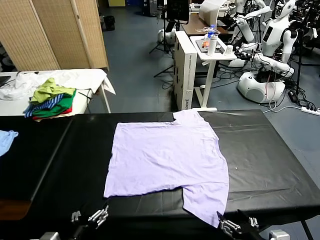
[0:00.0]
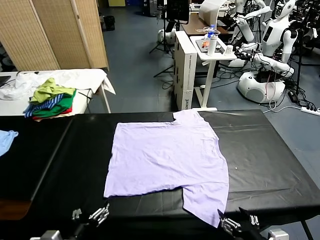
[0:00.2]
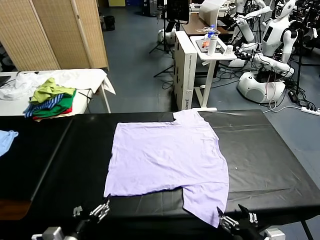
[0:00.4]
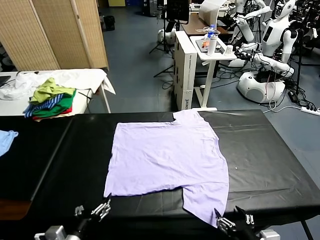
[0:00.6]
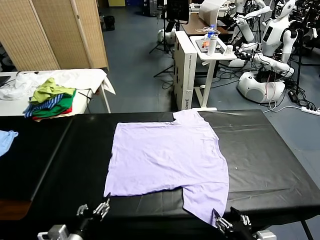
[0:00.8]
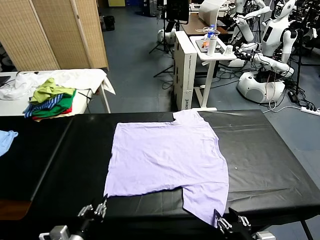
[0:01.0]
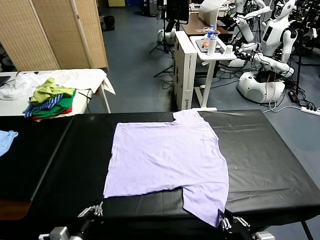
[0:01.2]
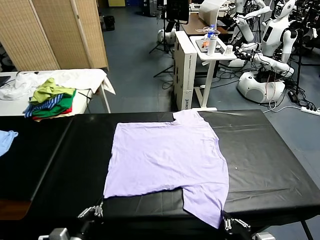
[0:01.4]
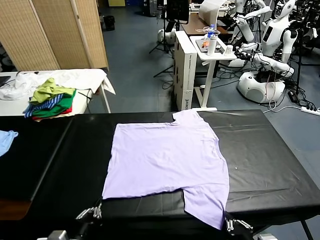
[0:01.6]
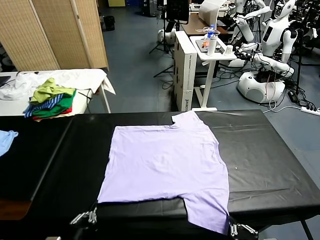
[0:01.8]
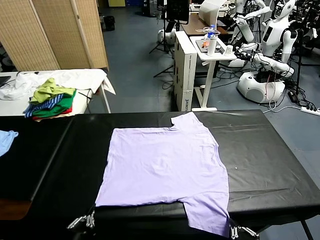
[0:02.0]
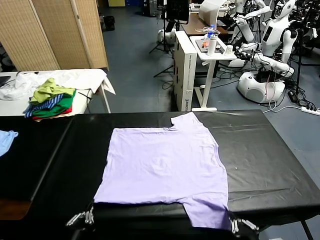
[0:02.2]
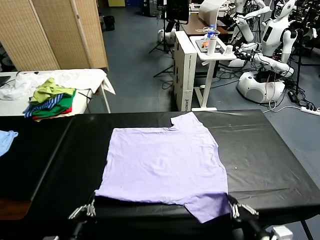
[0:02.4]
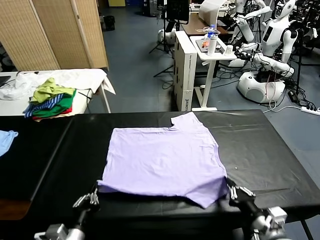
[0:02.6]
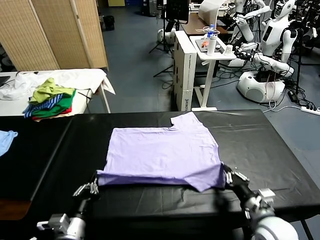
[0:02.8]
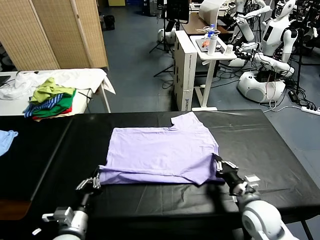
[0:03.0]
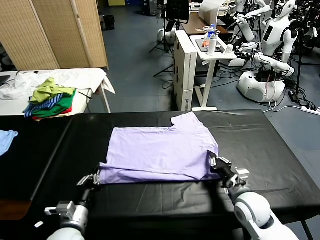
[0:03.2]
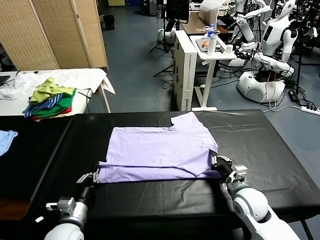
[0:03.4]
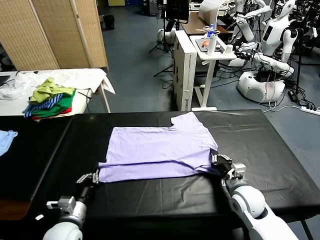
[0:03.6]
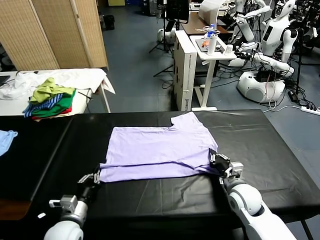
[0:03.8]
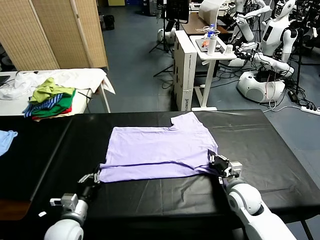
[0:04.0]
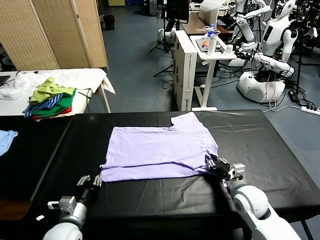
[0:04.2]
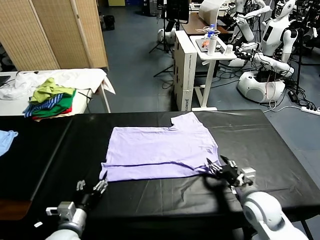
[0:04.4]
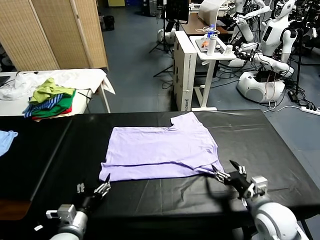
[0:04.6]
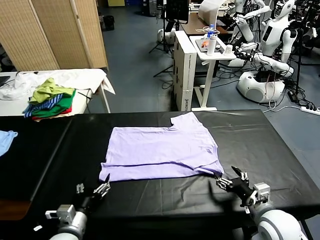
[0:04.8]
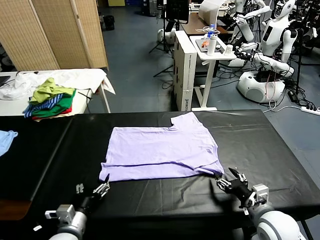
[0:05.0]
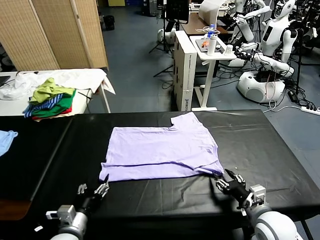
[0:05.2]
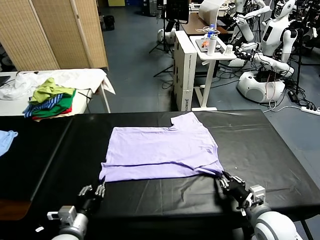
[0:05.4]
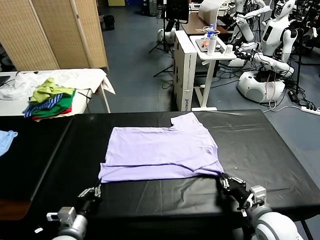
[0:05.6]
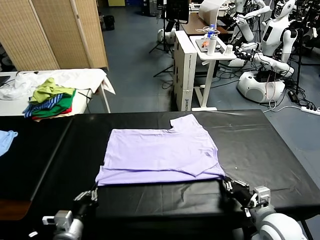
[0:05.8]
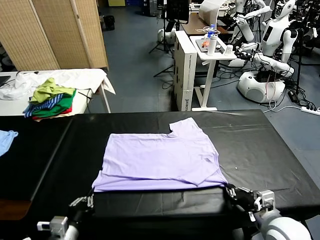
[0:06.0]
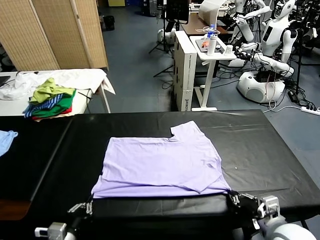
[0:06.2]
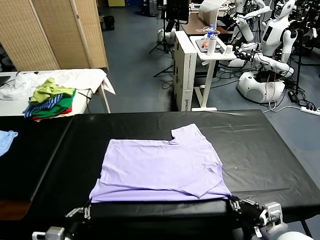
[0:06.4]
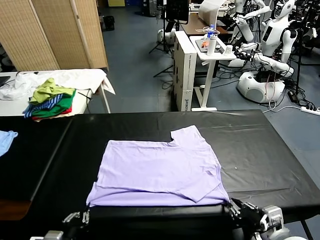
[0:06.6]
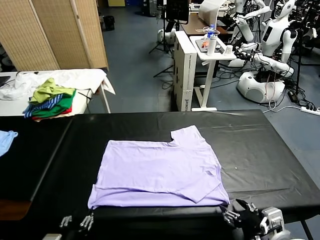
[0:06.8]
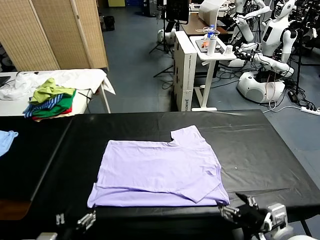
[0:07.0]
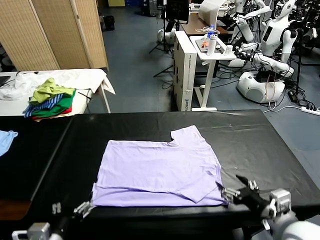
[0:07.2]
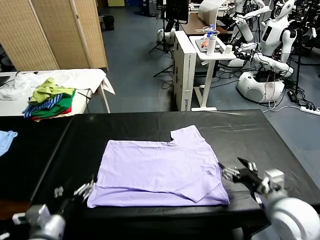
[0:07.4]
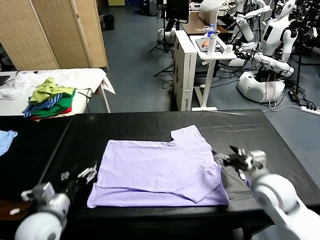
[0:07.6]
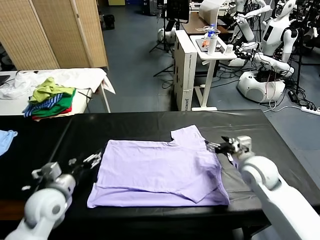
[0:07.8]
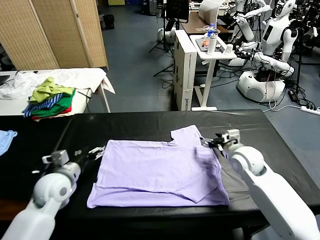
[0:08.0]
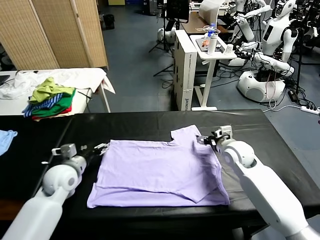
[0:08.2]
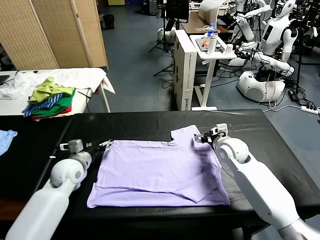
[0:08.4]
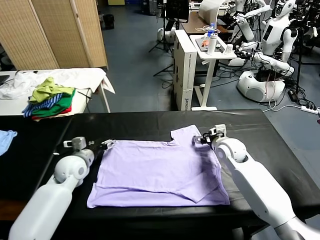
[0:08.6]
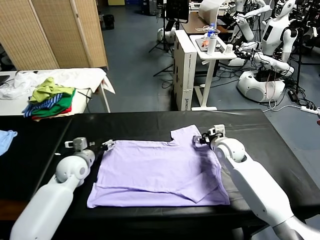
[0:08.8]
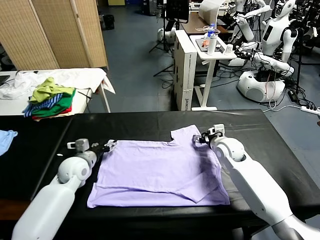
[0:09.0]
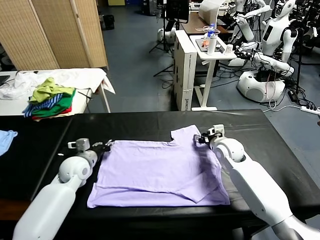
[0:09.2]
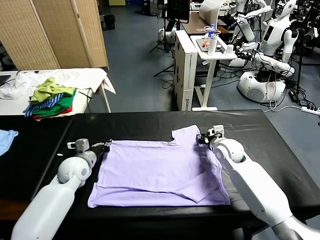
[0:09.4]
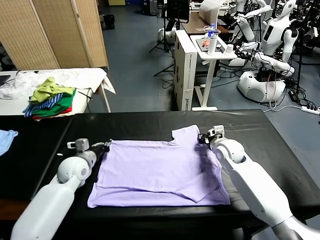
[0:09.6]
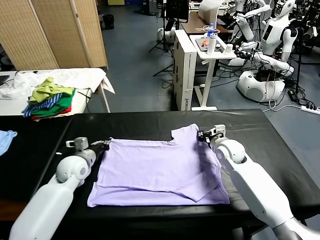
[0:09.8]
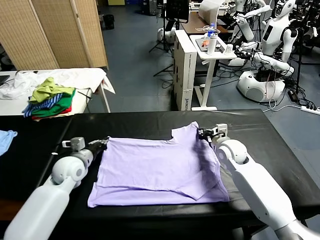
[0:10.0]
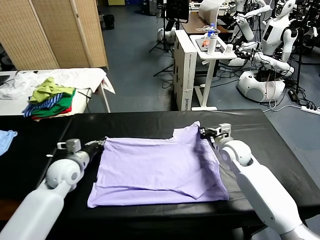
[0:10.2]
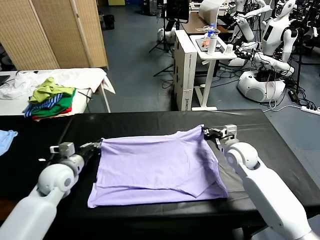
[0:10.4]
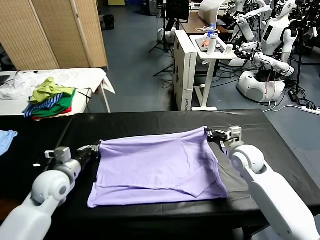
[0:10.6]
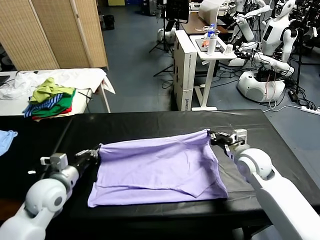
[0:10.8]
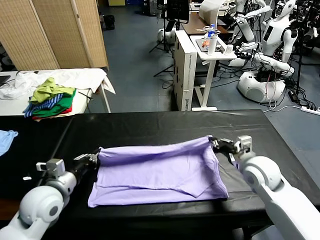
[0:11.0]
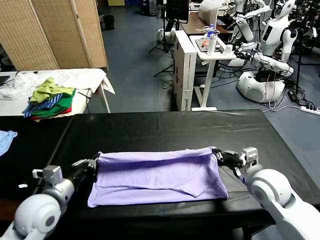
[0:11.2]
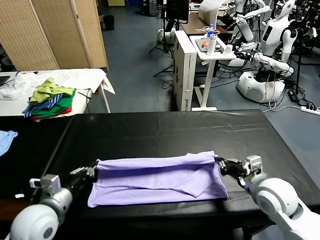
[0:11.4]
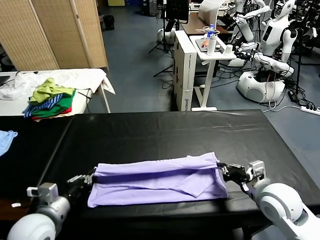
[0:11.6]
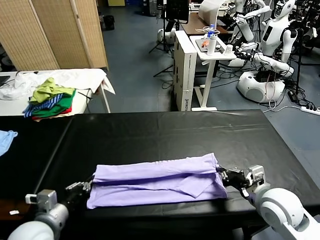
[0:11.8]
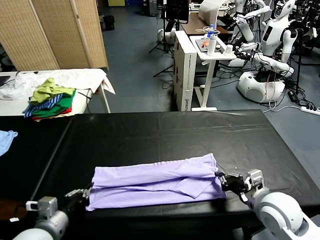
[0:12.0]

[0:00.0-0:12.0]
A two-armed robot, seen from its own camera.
Task of the whole recording: fold and organize the clothes.
Step, 0:00.0 to 0:01.6: use both grippers simultaneously to clamp the lower edge of the clothing fabric.
Step, 0:01.8 to 0:04.2: use both grippers to drag the lower edge of the fabric forward and fold it over the upper edge.
Step, 0:04.6 to 0:06.8: Drag the clothes downward with both gripper.
Step, 0:07.0 to 0:09.6: use both grippers simultaneously to clamp the upper edge of the clothing fabric.
0:01.6 to 0:03.0: The right gripper heads forward, covering roughly 25 cm. Meanwhile the left gripper heads forward, covering approximately 10 cm.
0:03.0 to 0:04.4: The right gripper shifts some 10 cm backward, and opens up. Meanwhile the left gripper opens its fingers.
0:04.4 to 0:06.0: The right gripper moves backward, some 5 cm, and closes its fingers; the left gripper shifts by roughly 5 cm, and closes up.
0:06.0 to 0:07.6: The left gripper travels forward and upward by about 10 cm, and opens. The right gripper heads forward, covering some 20 cm, and opens up.
0:07.6 to 0:09.0: The left gripper goes roughly 15 cm forward, and closes its fingers. Meanwhile the right gripper is displaced forward and downward by some 10 cm, and closes.
0:09.0 to 0:10.4: Both grippers travel together backward, some 5 cm. The left gripper closes. The right gripper closes up.
0:10.4 to 0:12.0: Both grippers travel together backward, approximately 15 cm.

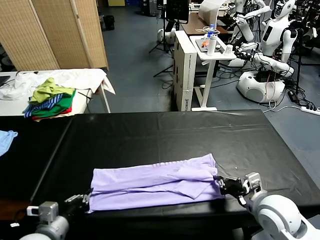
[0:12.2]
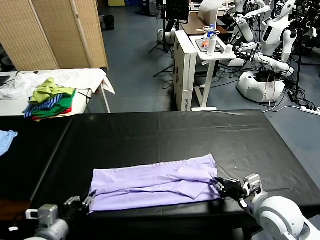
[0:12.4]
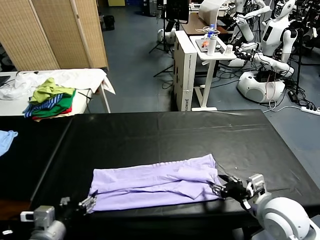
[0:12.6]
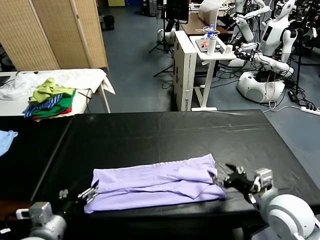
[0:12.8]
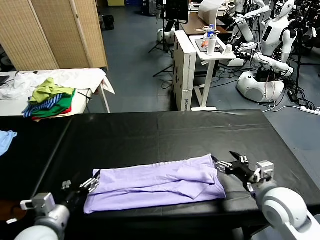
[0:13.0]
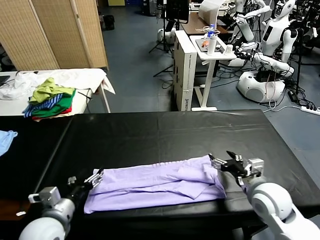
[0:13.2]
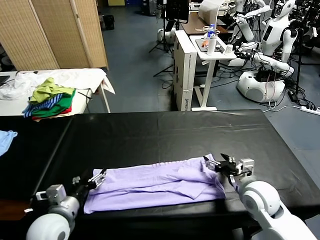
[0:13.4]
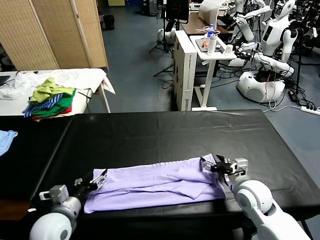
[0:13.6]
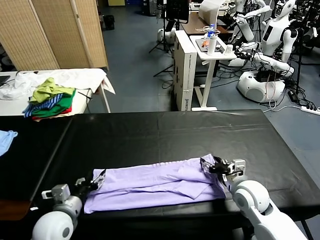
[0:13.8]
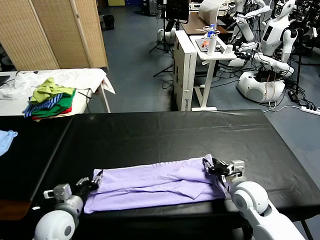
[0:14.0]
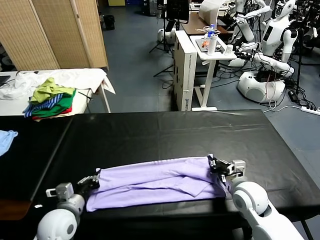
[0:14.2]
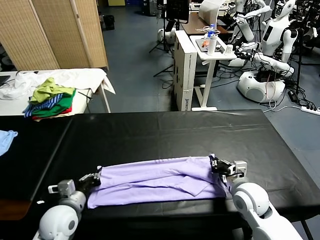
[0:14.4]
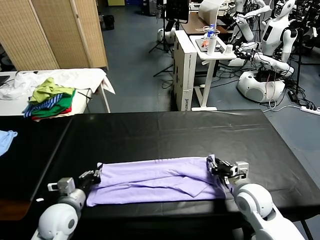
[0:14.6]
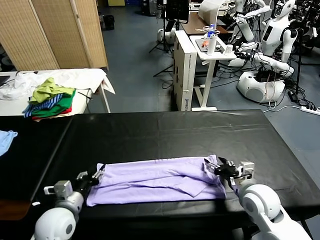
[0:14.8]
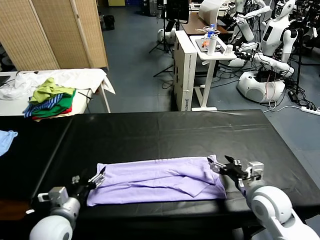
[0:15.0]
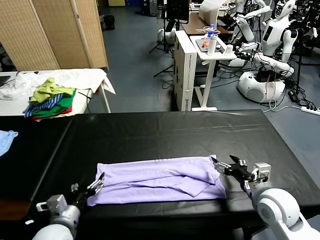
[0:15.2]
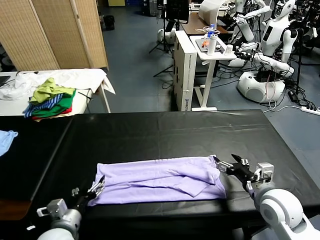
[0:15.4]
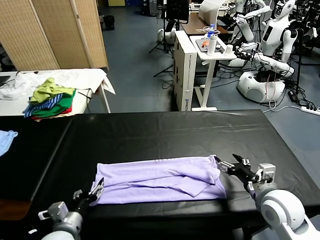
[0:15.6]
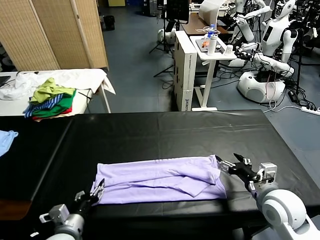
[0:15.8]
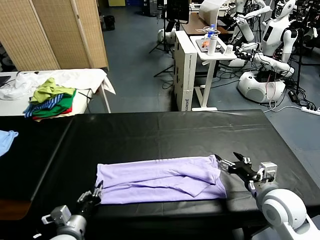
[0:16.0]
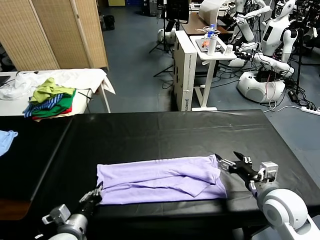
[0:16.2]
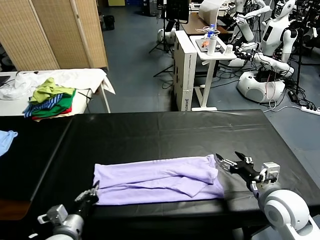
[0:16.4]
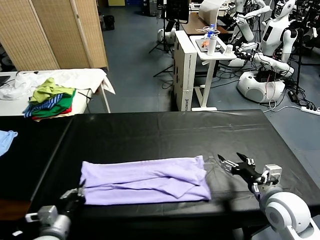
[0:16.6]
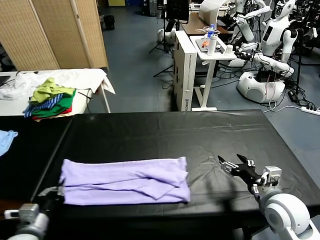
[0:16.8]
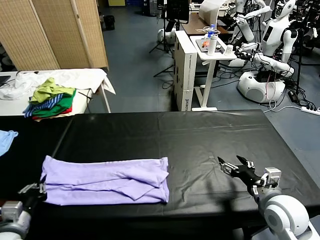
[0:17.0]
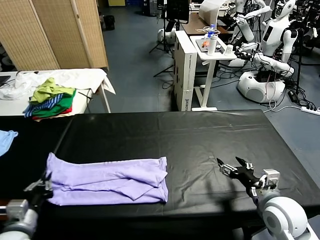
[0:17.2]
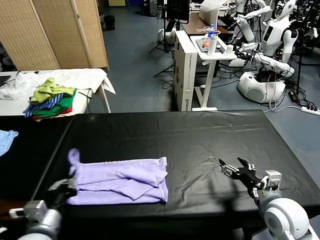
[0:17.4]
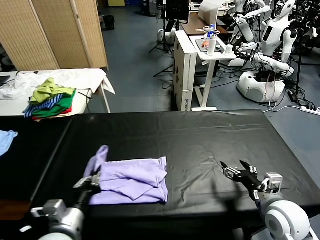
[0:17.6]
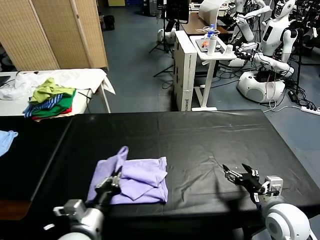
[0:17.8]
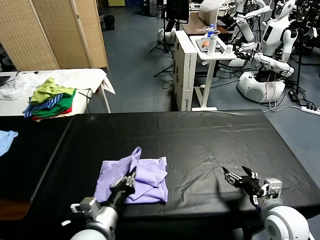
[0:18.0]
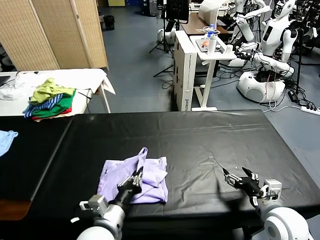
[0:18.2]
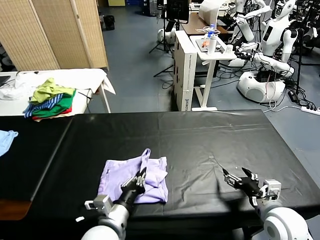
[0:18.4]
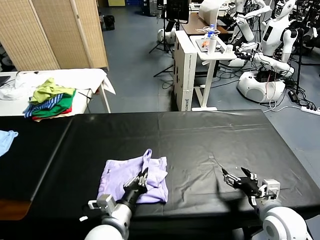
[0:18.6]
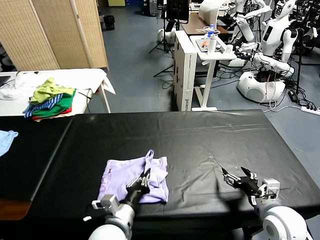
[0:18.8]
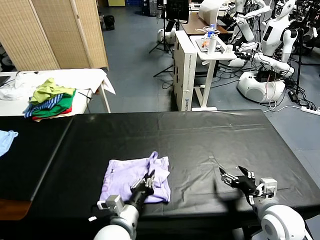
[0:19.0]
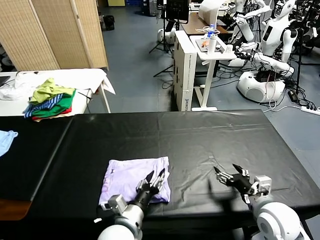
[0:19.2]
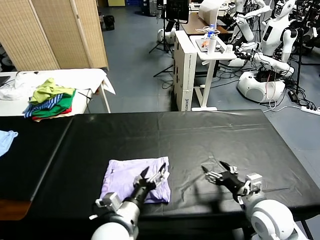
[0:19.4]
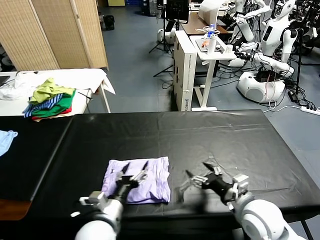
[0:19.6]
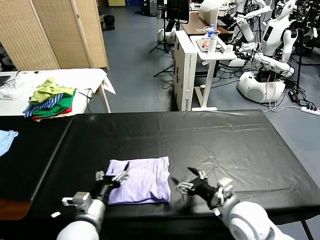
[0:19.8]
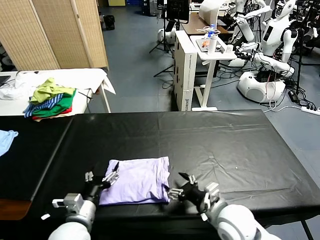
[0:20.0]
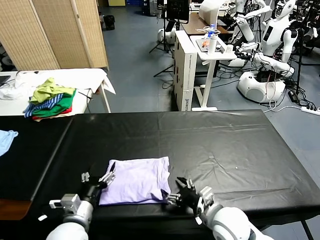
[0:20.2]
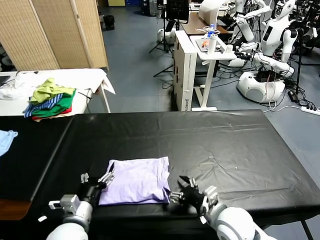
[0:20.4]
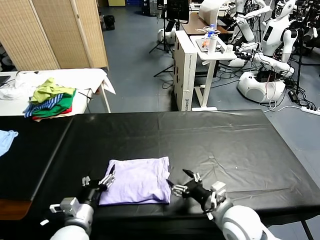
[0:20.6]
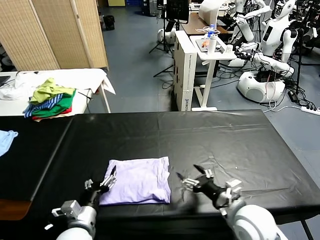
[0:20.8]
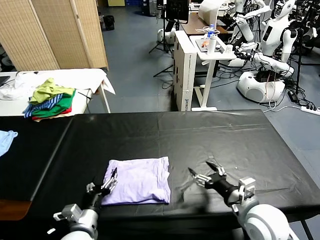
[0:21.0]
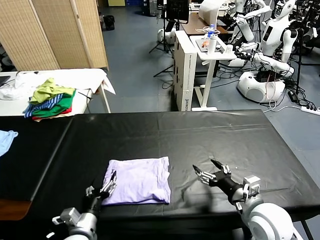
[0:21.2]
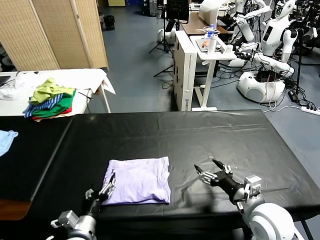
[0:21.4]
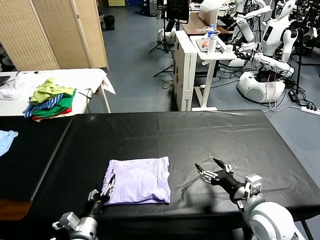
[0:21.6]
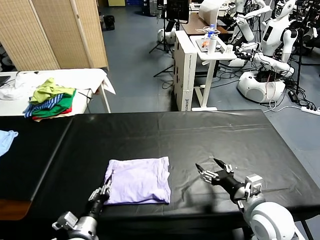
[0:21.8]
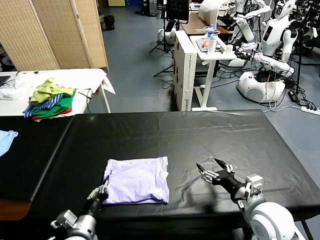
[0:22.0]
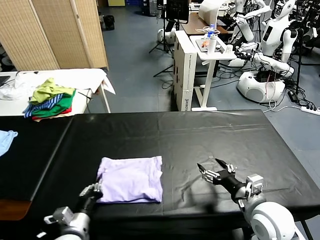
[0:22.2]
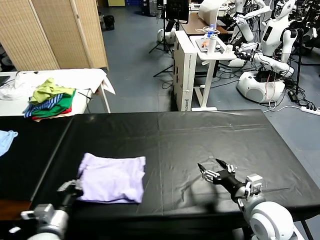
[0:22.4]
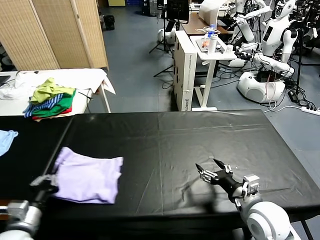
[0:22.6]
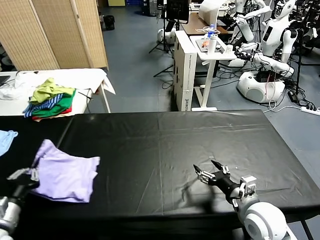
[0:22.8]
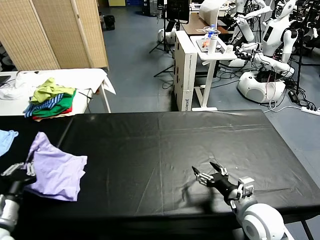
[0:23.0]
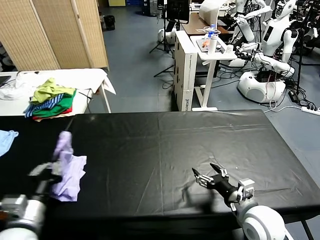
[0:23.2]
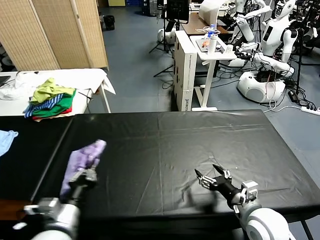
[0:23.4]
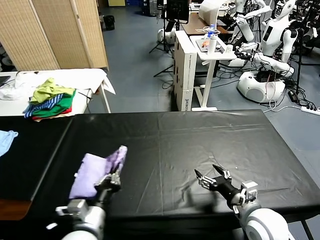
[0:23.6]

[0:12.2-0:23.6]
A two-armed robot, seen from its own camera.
Task of the whole recording: fold and organize the clothes.
Step, 0:12.8 to 0:16.2: use the left gripper to clamp the left edge of the fabric.
Step, 0:16.4 to 0:19.4: use the left gripper to drag the left edge of the fabric to the left and folds it over the right edge.
0:12.2 to 0:13.6: The left gripper shifts some 5 cm forward, and opens its fingers, while the right gripper travels forward and downward by roughly 10 cm, and opens.
0:13.6 to 0:15.0: The left gripper closes, then reopens; the right gripper moves approximately 10 cm, and closes, then reopens.
0:15.0 to 0:16.4: The left gripper closes.
0:16.4 to 0:17.8: The left gripper travels to the right and upward by approximately 10 cm.
0:17.8 to 0:19.4: The right gripper changes place by some 5 cm; the left gripper travels to the right by some 5 cm, and opens up.
0:19.4 to 0:20.8: The left gripper is displaced to the left by about 10 cm. Meanwhile the right gripper reaches approximately 10 cm to the left, then returns.
0:20.8 to 0:22.2: The left gripper closes its fingers.
0:22.2 to 0:23.6: The left gripper goes roughly 10 cm upward, and reaches approximately 15 cm to the left, then returns.
